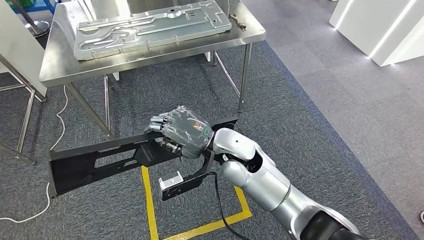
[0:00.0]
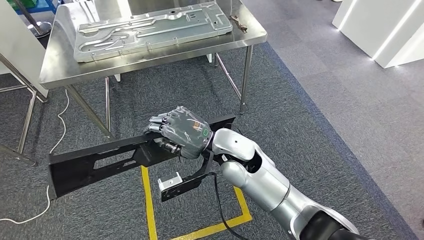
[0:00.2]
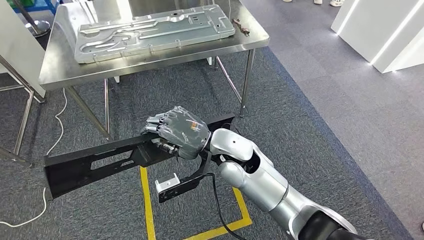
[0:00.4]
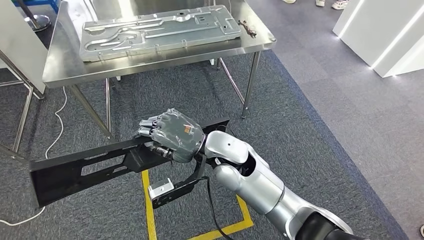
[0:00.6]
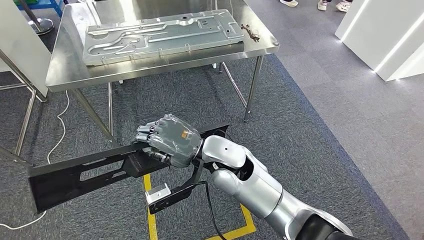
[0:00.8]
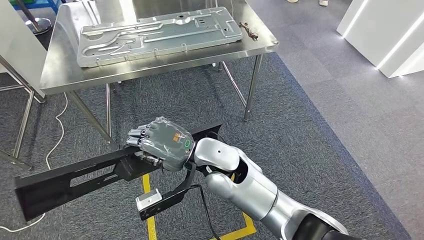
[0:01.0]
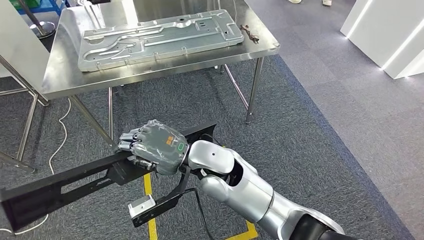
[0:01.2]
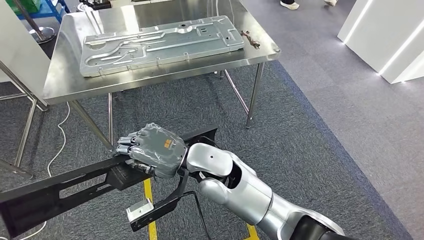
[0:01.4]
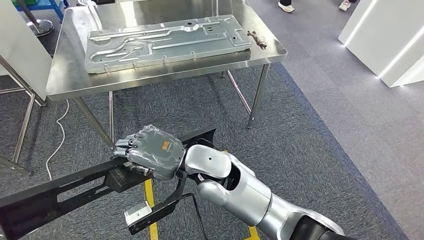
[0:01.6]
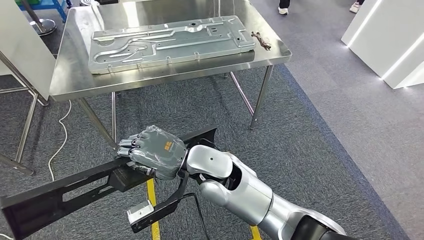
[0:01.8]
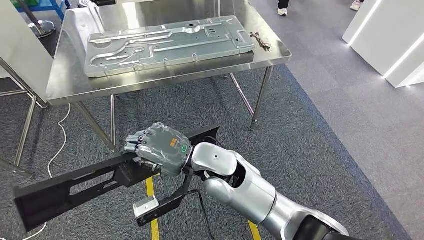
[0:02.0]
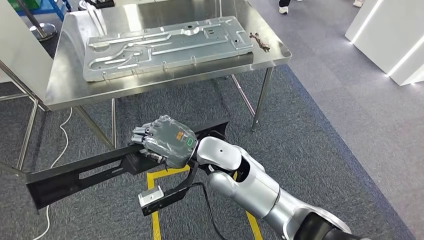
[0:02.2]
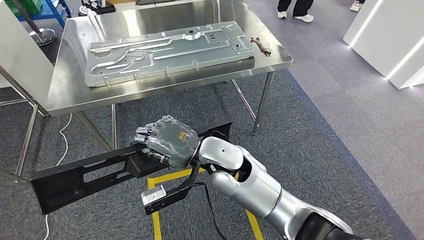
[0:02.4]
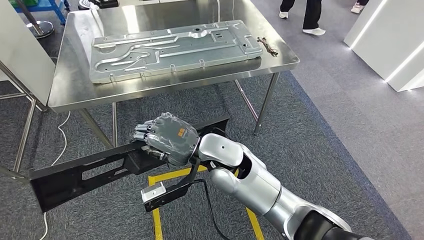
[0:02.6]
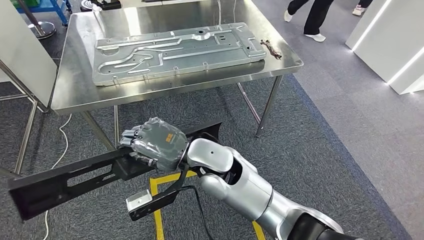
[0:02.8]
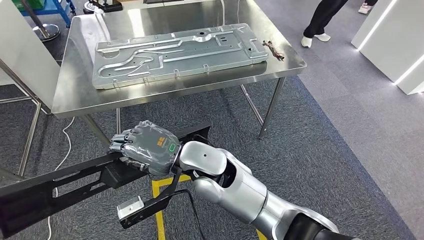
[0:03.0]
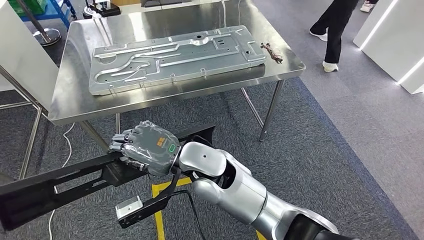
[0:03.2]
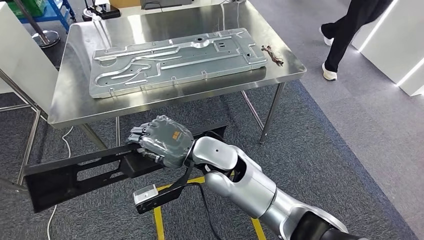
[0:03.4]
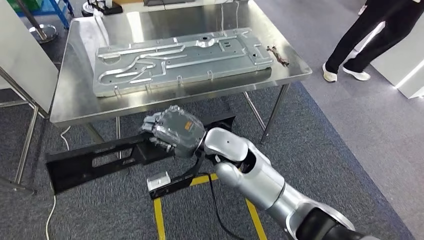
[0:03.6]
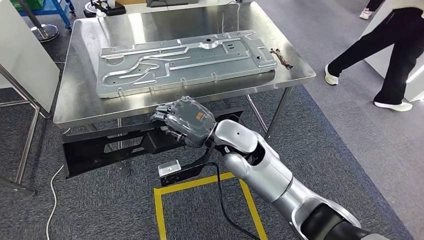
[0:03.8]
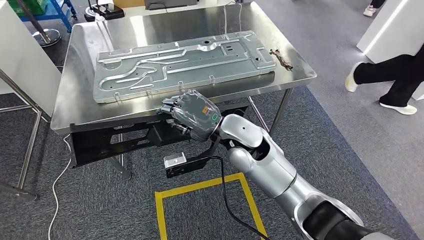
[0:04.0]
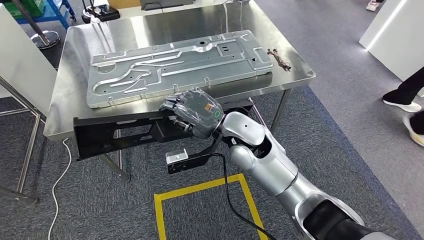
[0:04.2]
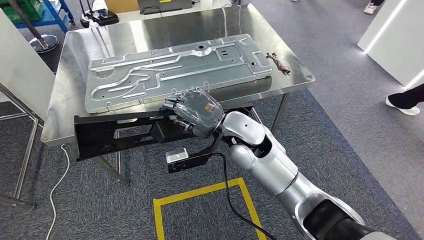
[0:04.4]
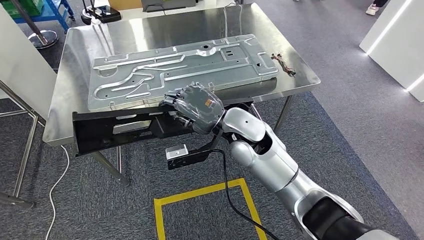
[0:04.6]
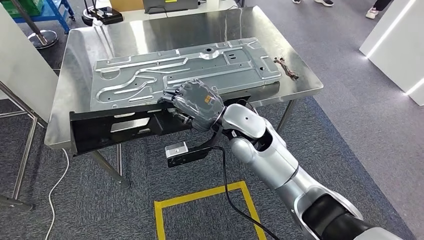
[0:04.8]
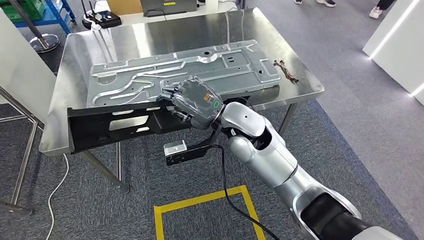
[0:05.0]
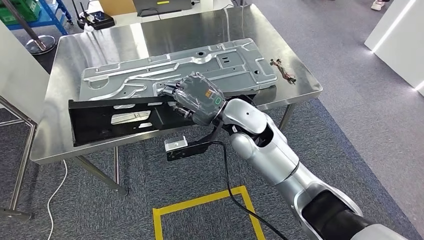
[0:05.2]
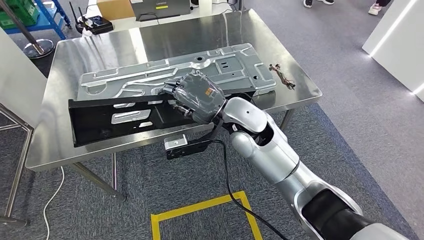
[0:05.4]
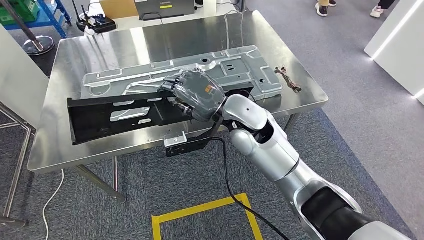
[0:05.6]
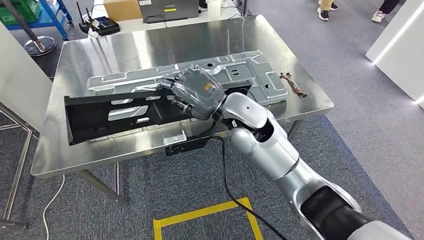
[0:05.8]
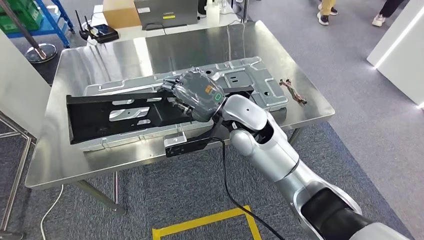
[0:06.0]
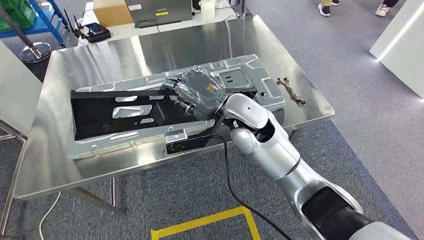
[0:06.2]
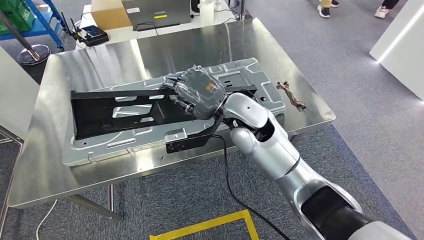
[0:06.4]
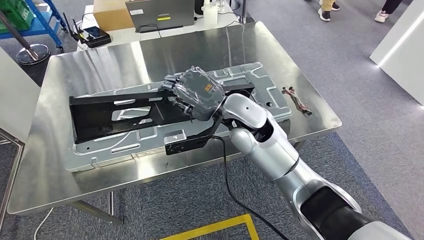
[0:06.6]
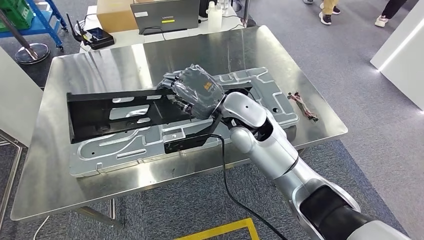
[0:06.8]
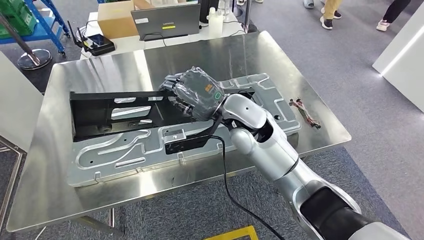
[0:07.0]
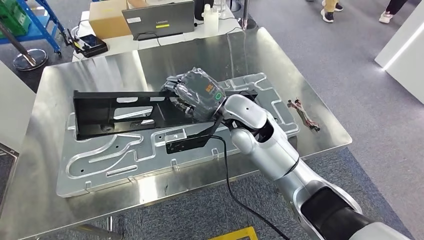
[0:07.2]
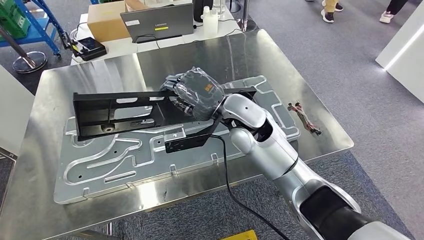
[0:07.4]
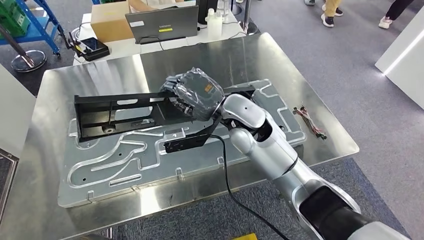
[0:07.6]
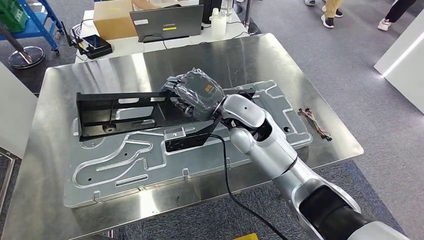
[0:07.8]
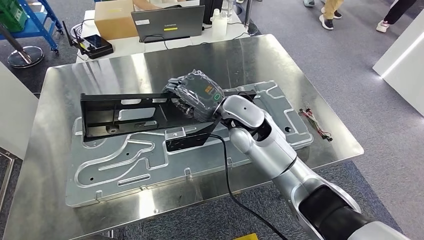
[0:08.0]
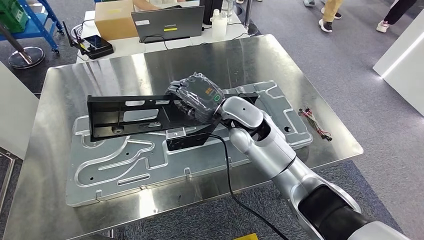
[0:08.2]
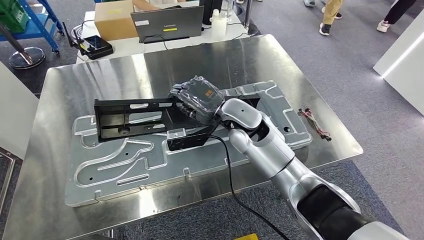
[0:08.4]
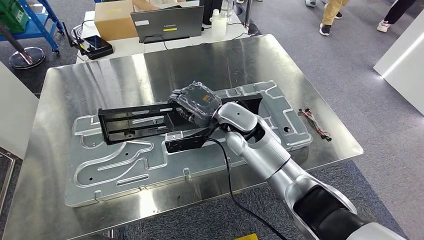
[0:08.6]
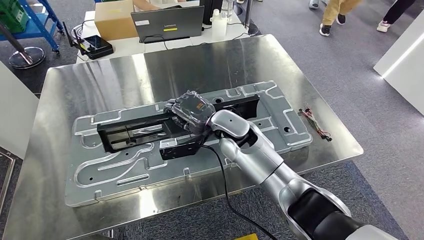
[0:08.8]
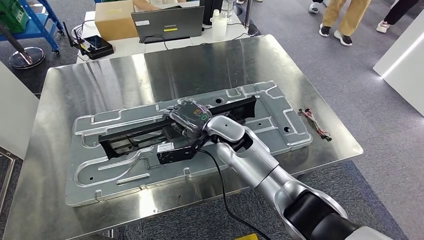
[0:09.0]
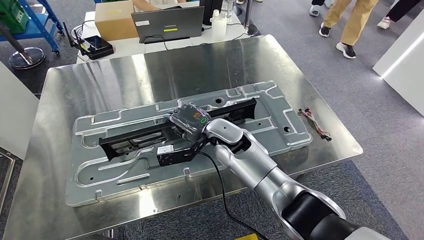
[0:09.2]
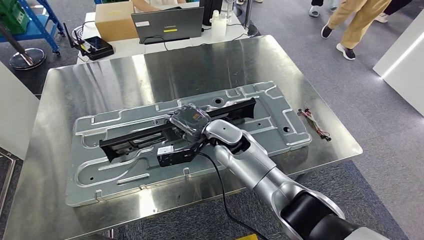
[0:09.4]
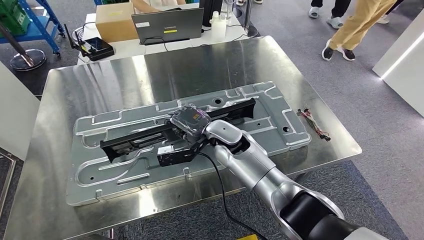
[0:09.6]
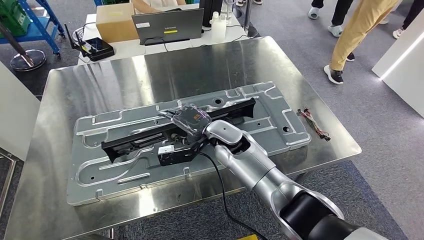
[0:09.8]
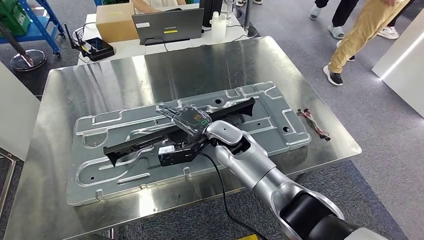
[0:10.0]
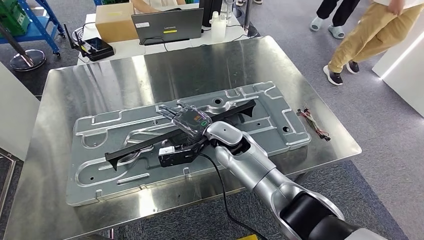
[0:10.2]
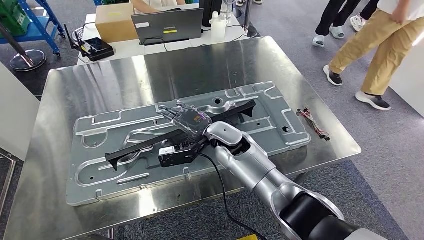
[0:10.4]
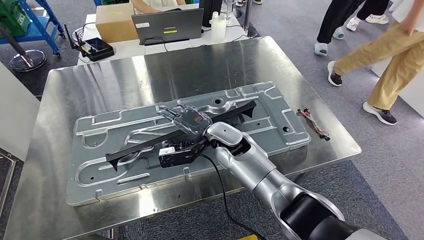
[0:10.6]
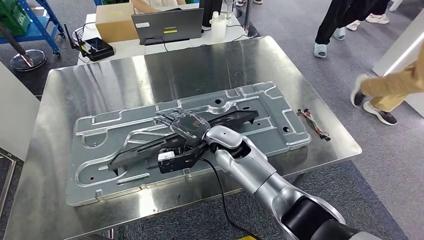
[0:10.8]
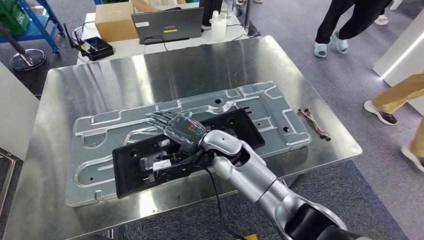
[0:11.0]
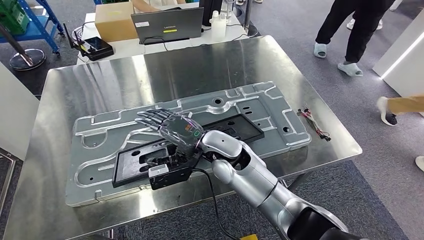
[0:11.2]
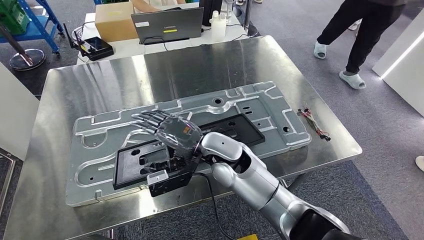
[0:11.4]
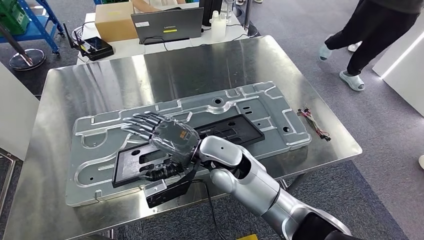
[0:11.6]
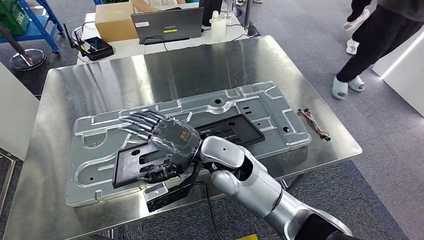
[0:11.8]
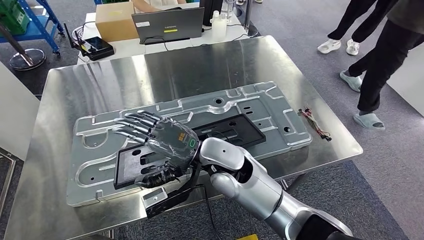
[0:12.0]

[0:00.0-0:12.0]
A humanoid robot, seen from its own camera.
Step, 0:00.0 to 0:04.0: Move the large material to the front of the workbench.

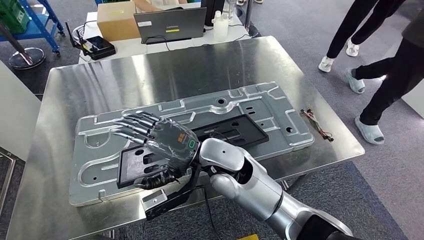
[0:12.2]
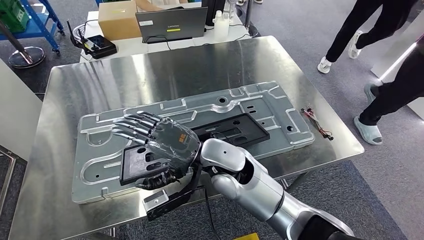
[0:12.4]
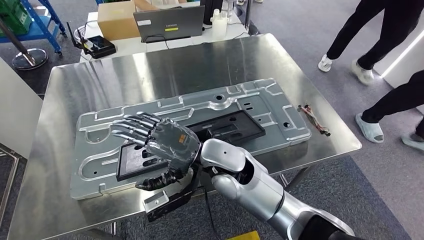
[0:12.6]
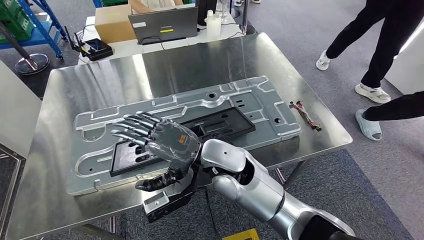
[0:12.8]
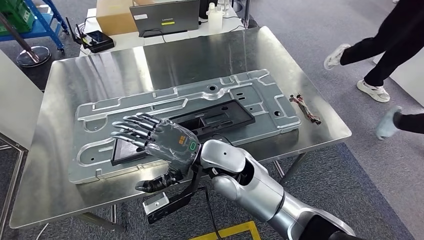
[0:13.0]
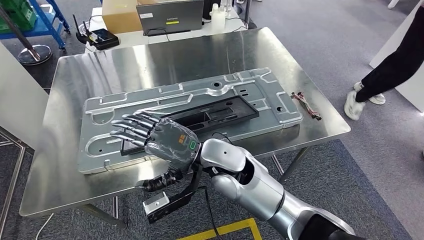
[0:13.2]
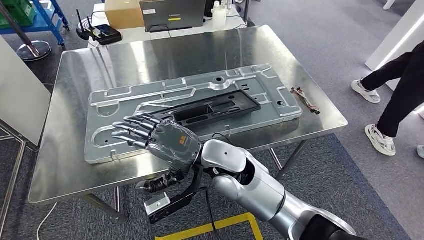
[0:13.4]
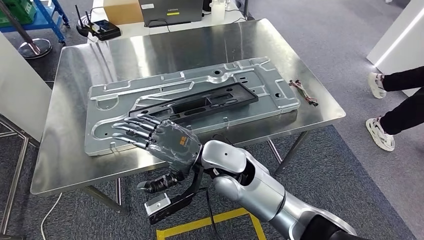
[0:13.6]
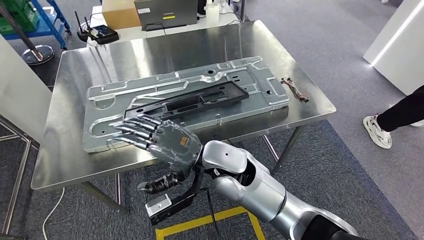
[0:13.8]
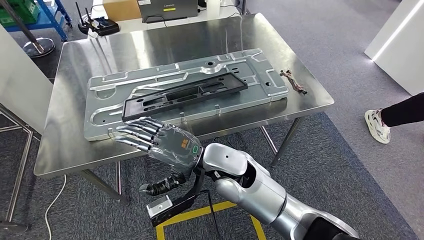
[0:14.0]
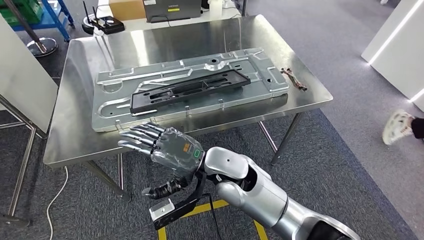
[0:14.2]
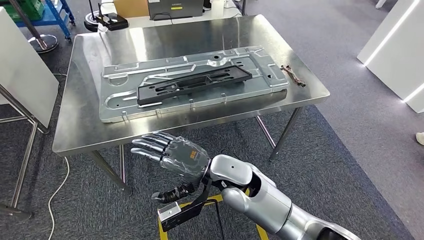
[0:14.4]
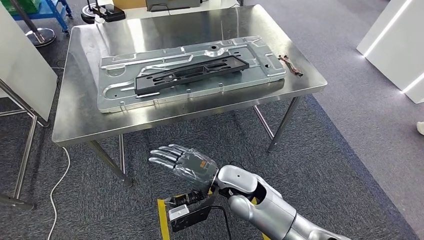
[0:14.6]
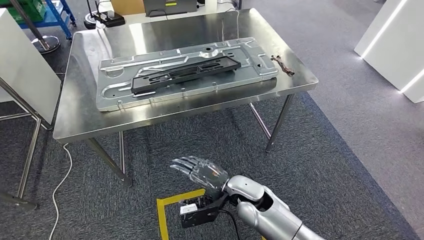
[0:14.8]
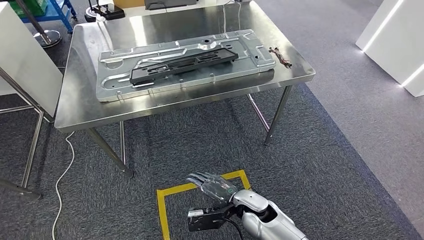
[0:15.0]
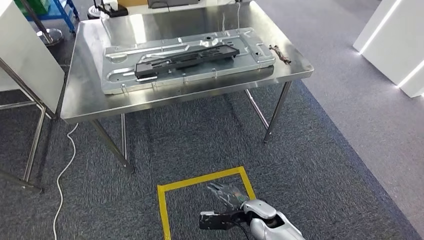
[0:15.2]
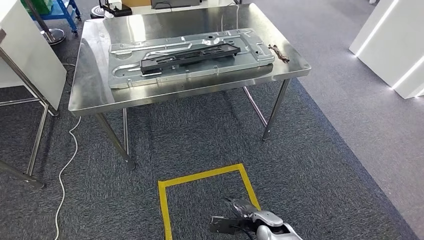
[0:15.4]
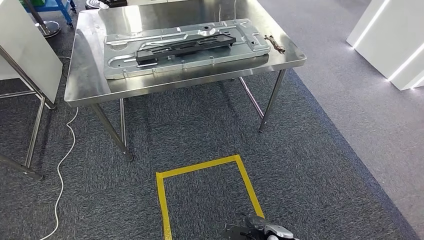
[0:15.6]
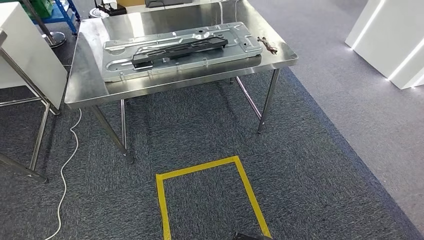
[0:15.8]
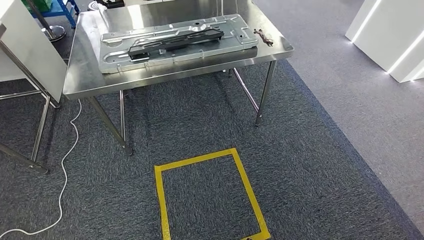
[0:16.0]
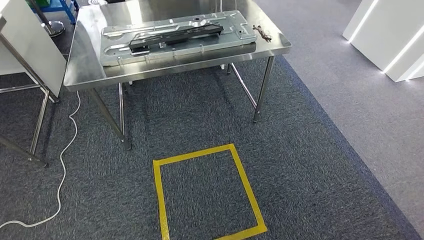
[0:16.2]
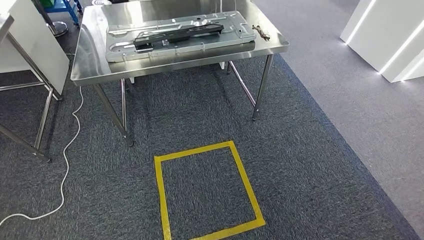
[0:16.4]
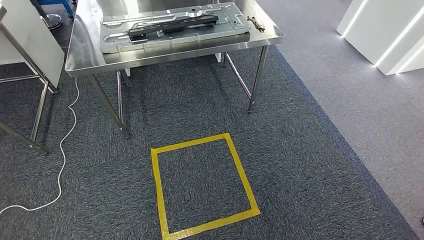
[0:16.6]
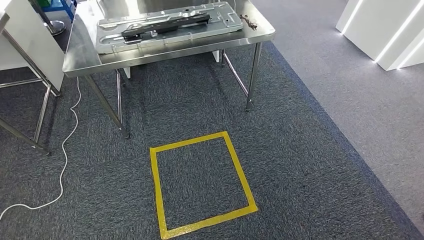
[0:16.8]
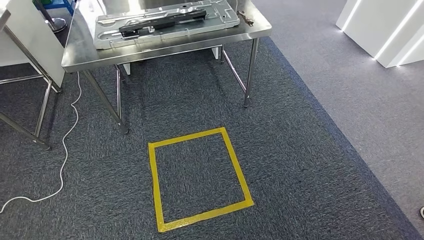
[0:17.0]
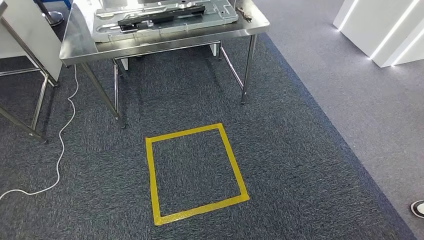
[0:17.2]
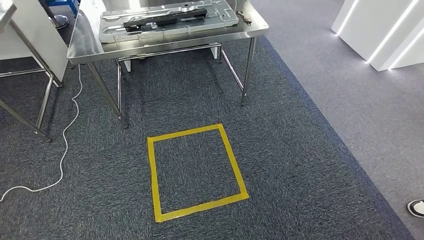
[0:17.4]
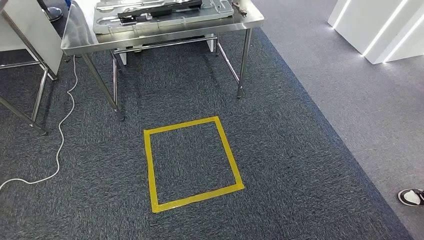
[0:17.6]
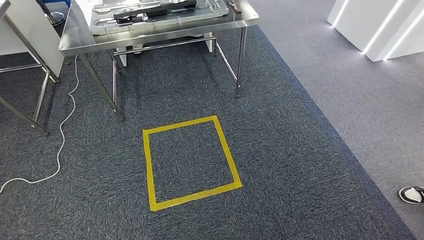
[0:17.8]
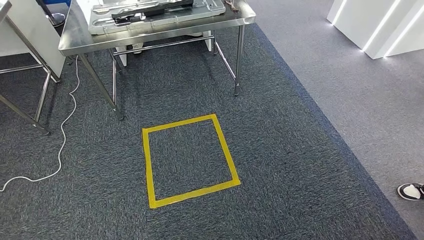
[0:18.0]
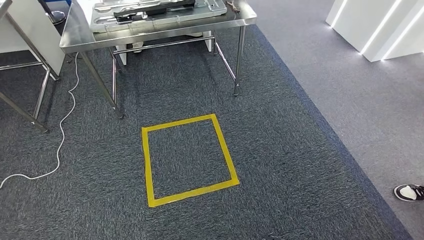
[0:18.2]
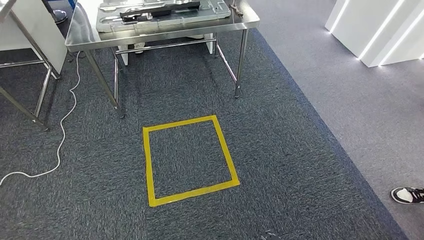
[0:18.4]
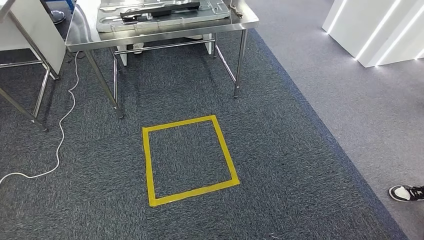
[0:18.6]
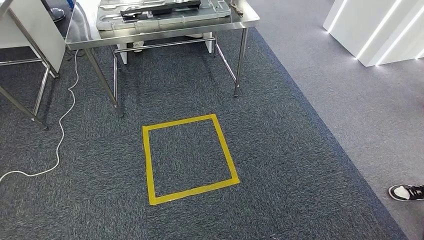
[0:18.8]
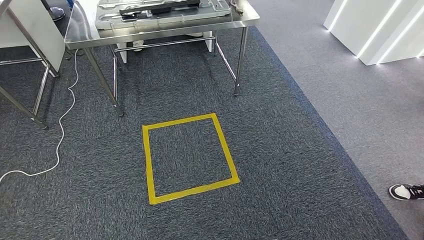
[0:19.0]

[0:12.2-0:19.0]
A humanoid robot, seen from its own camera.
Step, 0:12.8 to 0:19.0: Move to the initial position of the shelf.
0:17.6 to 0:19.0: The left hand shifts about 5 cm backward.
